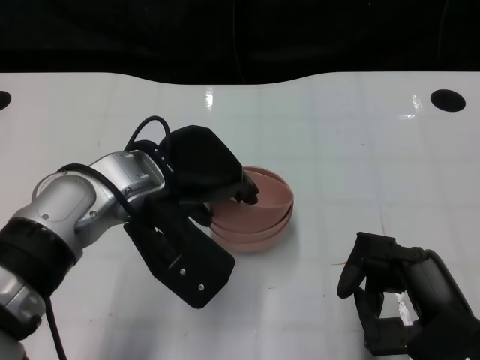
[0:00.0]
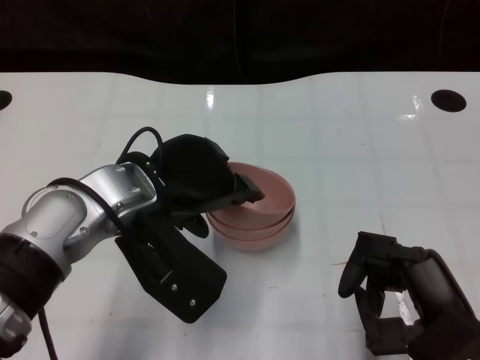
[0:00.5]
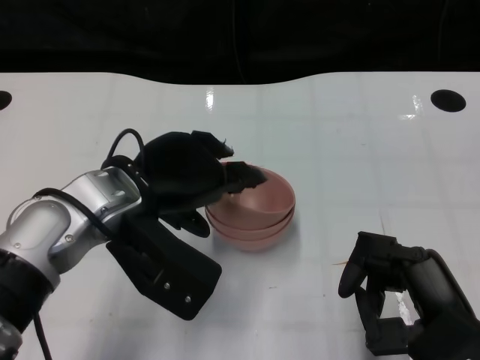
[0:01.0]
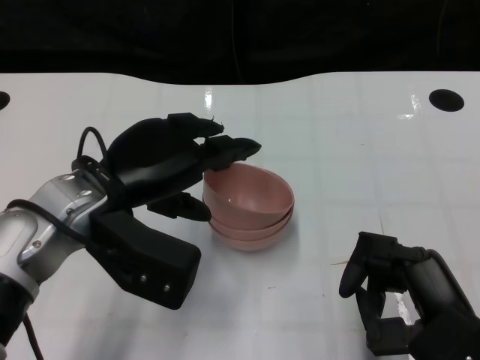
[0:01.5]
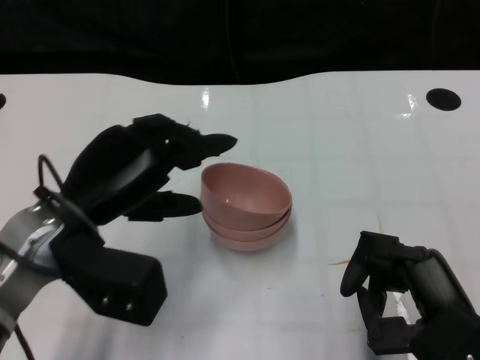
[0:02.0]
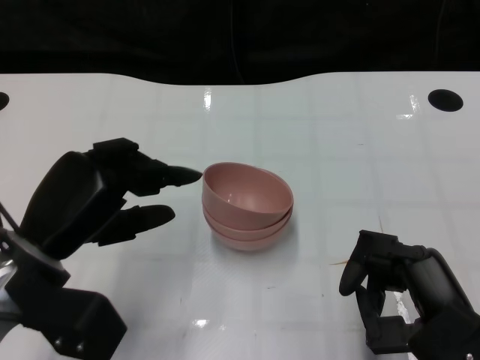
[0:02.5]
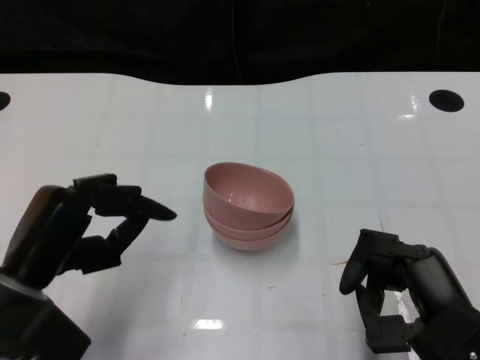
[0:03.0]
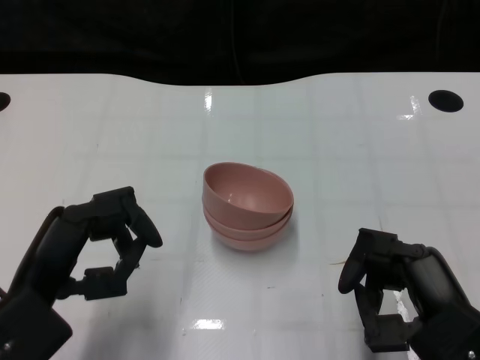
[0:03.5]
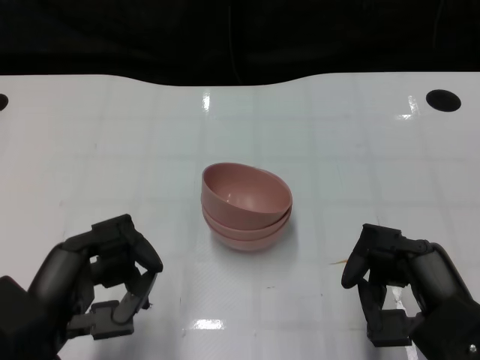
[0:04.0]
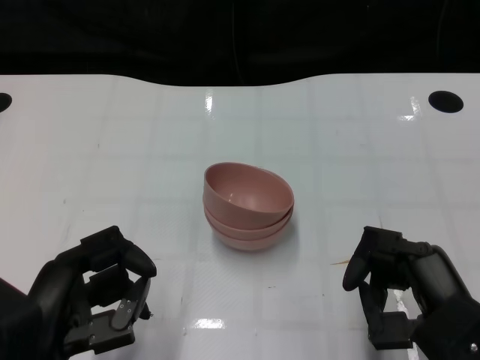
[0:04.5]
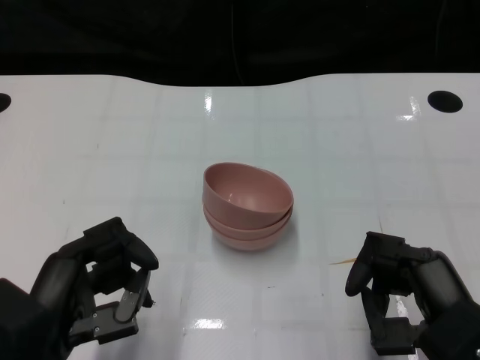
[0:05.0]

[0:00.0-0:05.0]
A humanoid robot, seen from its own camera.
Task of the whole recording: Pick up the bowl on one side of the table and place it on top of the middle bowl, then pick up the bowl on the other side of the table and place it on top of the middle bowls.
0:00.0 to 0:02.5: The left hand travels to the left and backward by about 10 cm.
0:02.5 to 0:05.0: The left hand travels backward by some 10 cm.

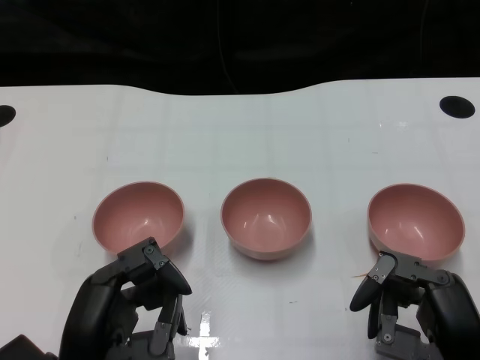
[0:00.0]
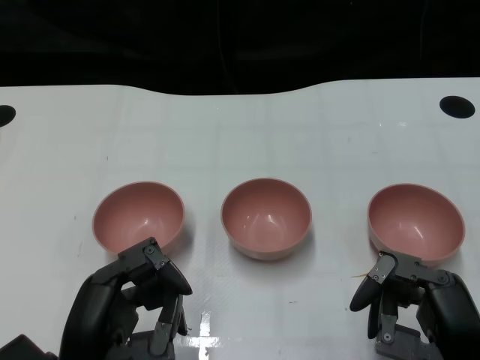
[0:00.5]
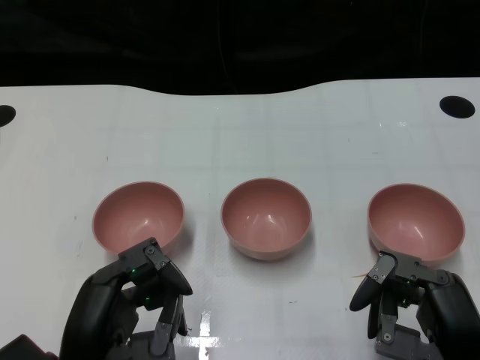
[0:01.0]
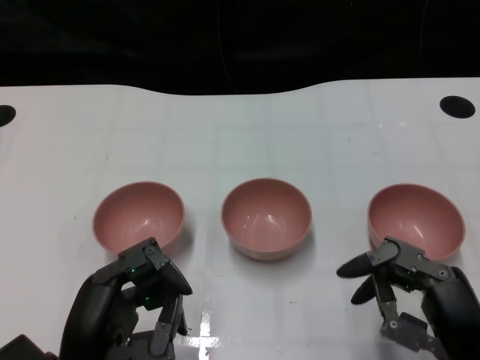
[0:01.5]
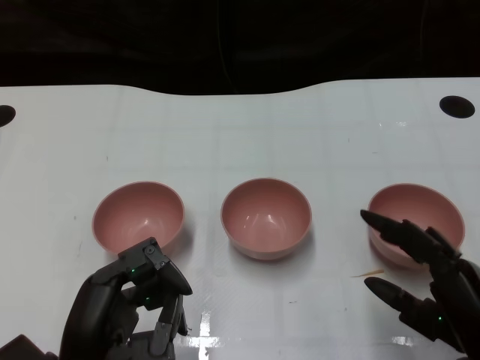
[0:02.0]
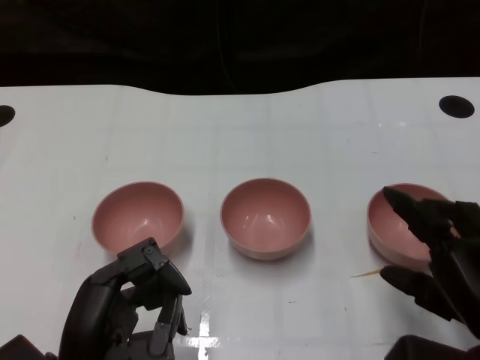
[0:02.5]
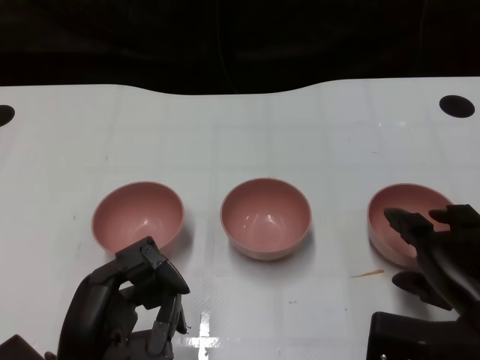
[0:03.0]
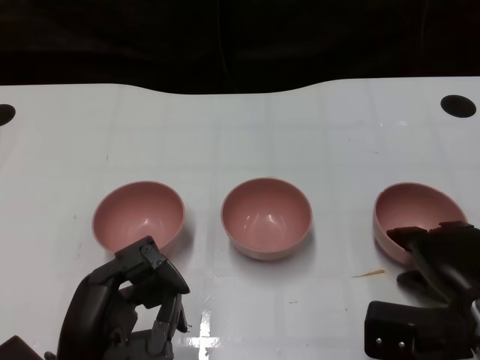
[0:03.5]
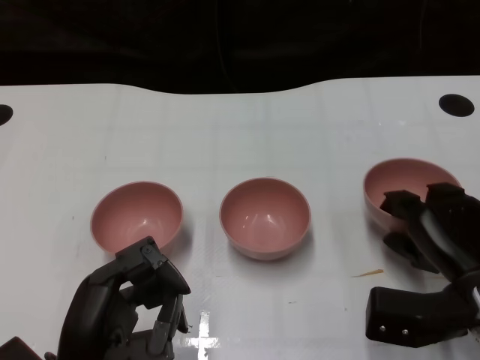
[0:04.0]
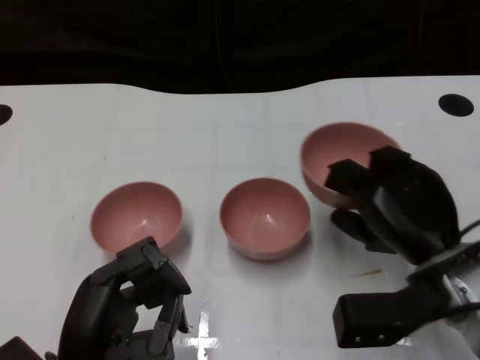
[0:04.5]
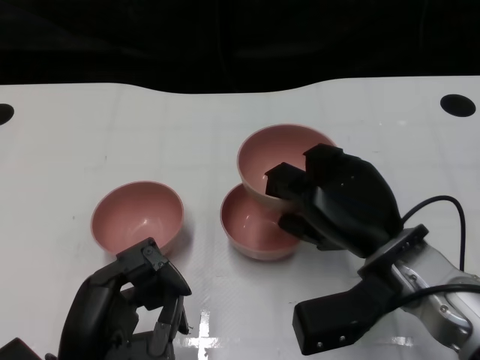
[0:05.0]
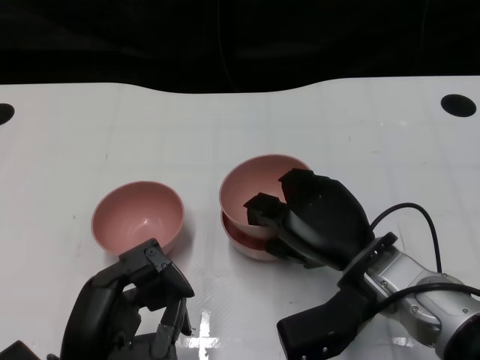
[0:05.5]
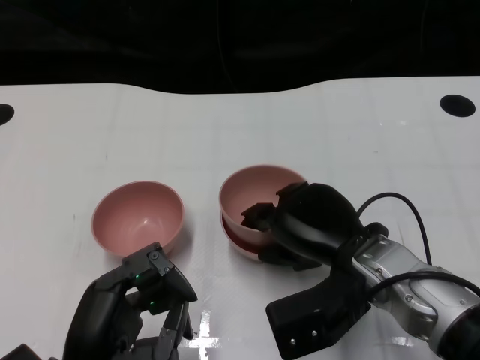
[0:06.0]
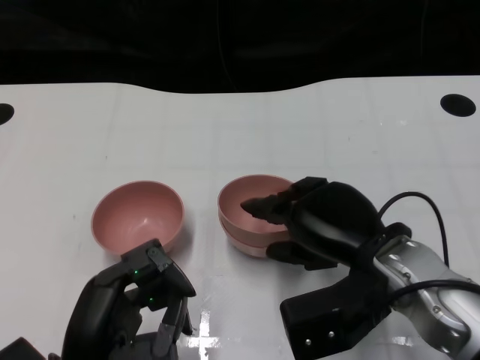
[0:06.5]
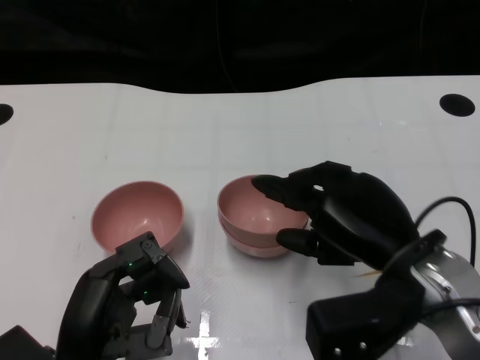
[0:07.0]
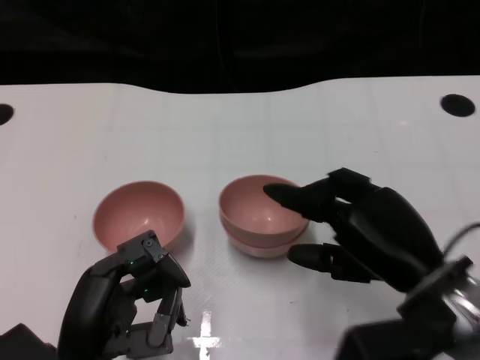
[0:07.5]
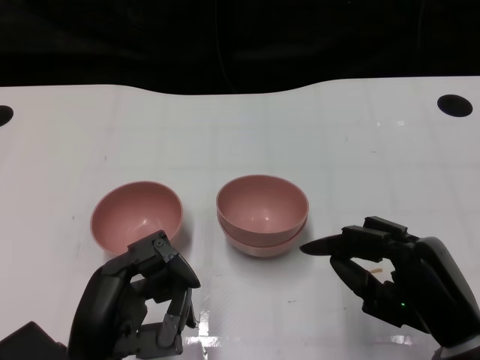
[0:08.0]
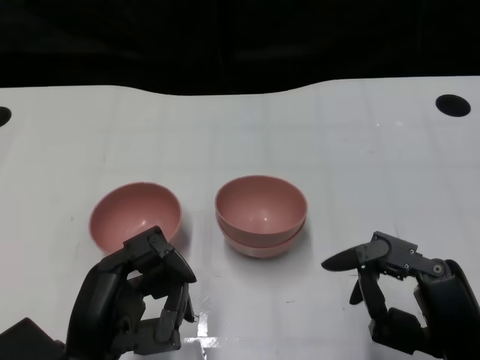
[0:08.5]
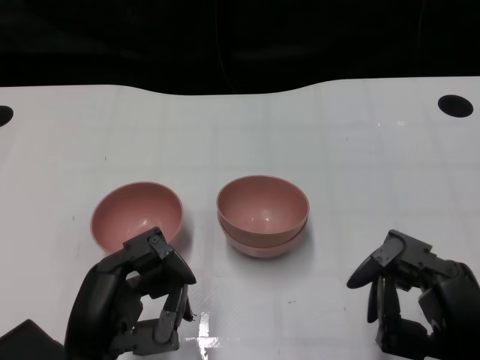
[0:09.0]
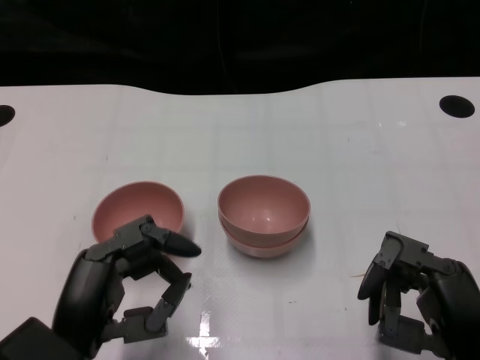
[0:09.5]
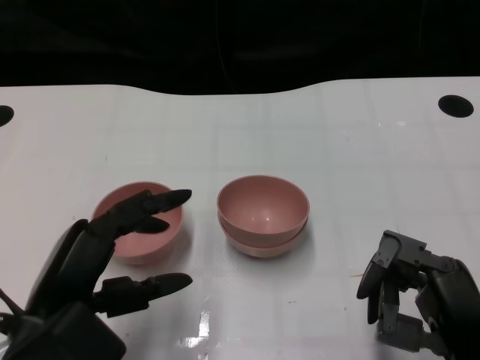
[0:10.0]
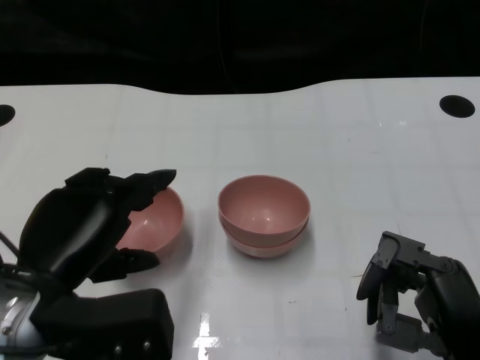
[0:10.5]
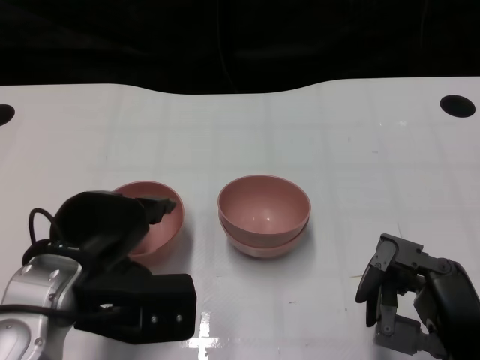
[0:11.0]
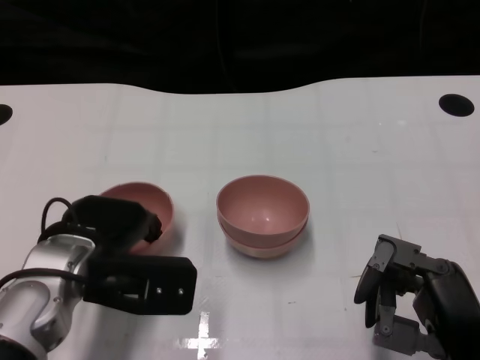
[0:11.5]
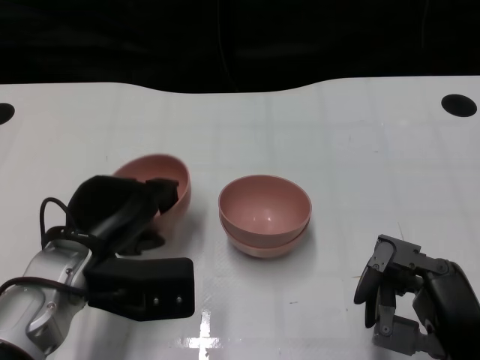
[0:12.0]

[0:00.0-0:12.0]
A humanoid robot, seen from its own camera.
Task of the whole recording: Pick up the bowl on one side of the table and place it on top of the middle bowl, then pick up the bowl on the other side of the table and place it on top of the middle bowls.
Step, 0:01.5 to 0:03.5: Grasp the bowl on the right with the right gripper.
Step, 0:04.0 to 0:06.5: Place the bowl on the right onto the bowl in the middle with right gripper.
Step, 0:07.5 to 0:11.5: Grasp the bowl on the left with the left gripper.
0:02.0 to 0:04.0: The right hand goes approximately 10 cm forward.
0:04.0 to 0:06.0: The right hand shifts approximately 10 cm to the left.
0:06.0 to 0:08.0: The right hand travels backward and to the right by roughly 10 cm.
0:08.0 to 0:10.0: The left hand shifts some 5 cm upward.
0:10.0 to 0:12.0: The left hand shifts some 10 cm forward.

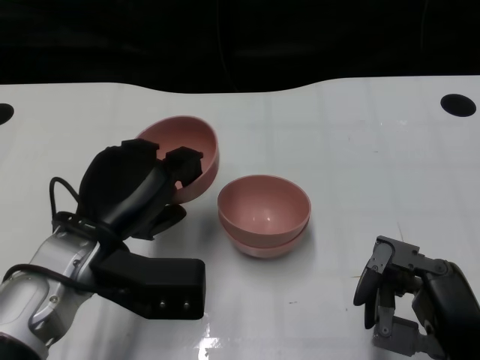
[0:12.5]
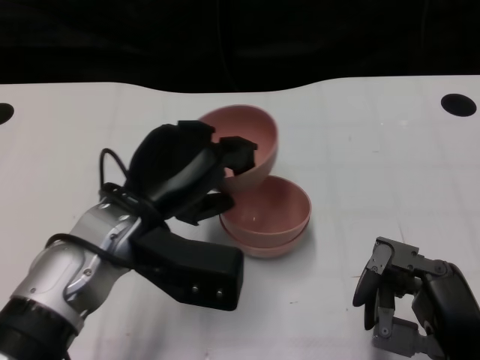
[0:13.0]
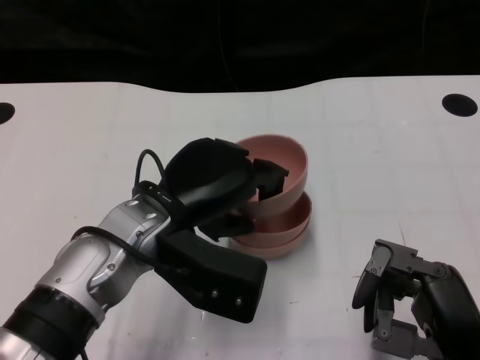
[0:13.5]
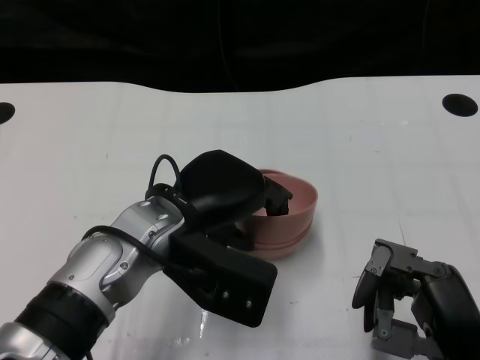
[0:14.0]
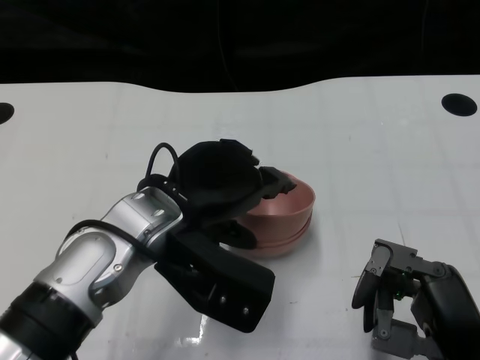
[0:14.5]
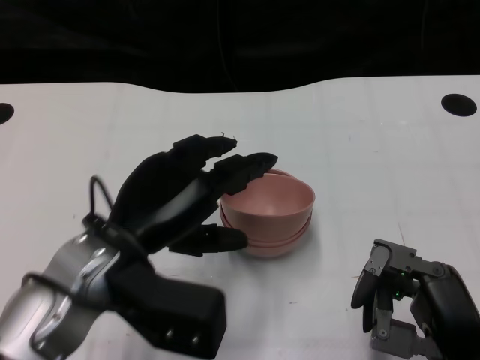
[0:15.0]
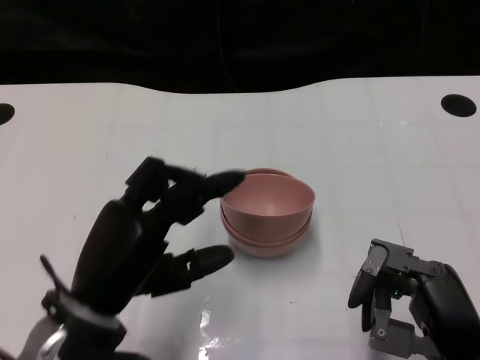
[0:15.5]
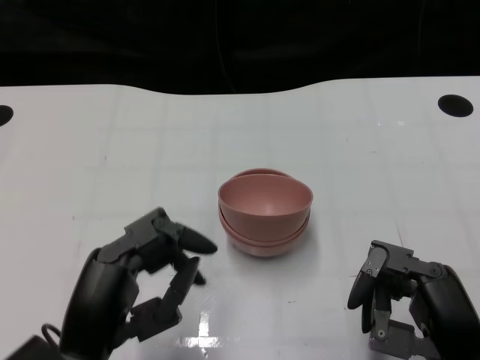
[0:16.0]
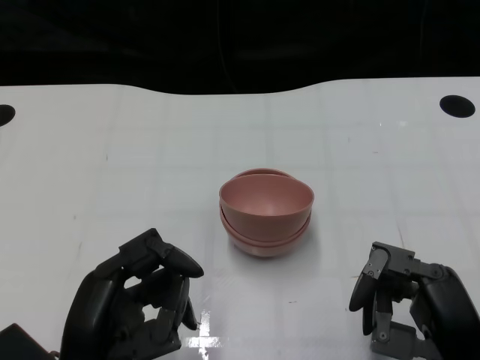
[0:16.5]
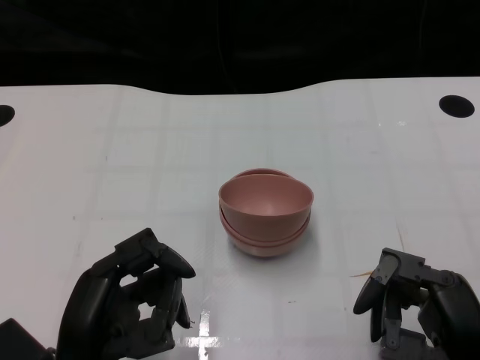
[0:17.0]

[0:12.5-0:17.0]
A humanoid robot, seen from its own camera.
Task of the whole recording: Pick up the bowl on one side of the table and place it on top of the middle bowl, then pick up the bowl on the other side of the table and place it on top of the middle bowls.
Step, 0:12.5 to 0:15.5: Place the bowl on the left onto the bowl in the middle with left gripper.
0:12.5 to 0:14.5: The left hand heads to the right, covering approximately 5 cm.
0:14.5 to 0:17.0: The left hand travels backward, to the left and downward by some 15 cm.

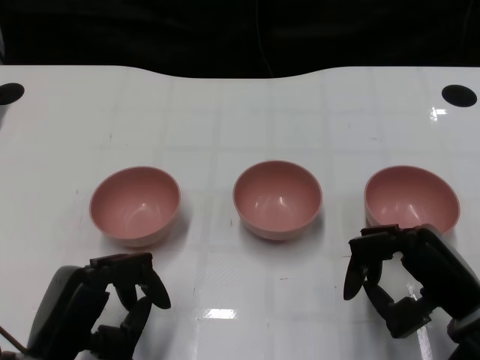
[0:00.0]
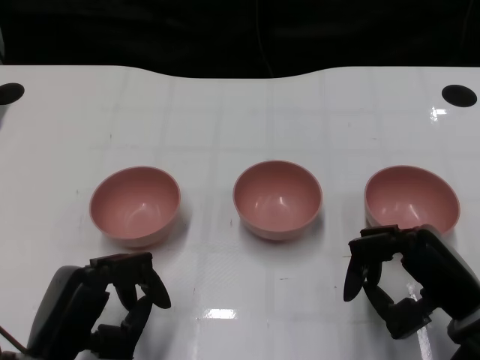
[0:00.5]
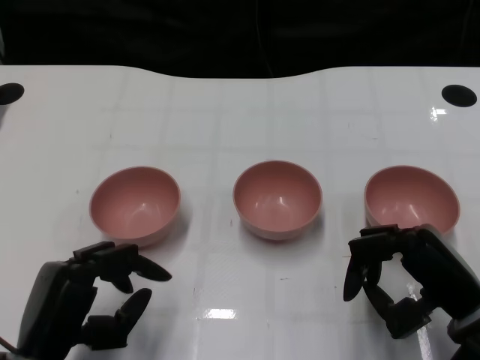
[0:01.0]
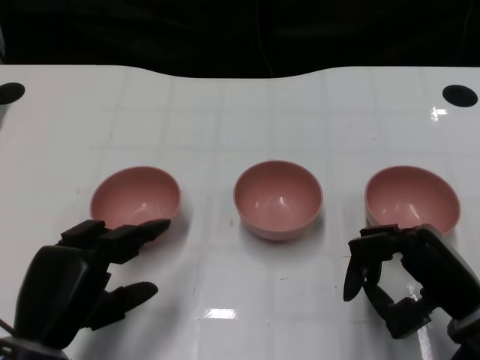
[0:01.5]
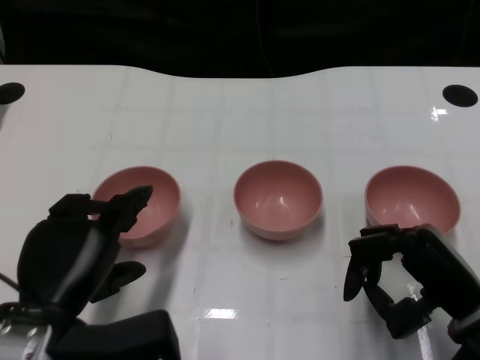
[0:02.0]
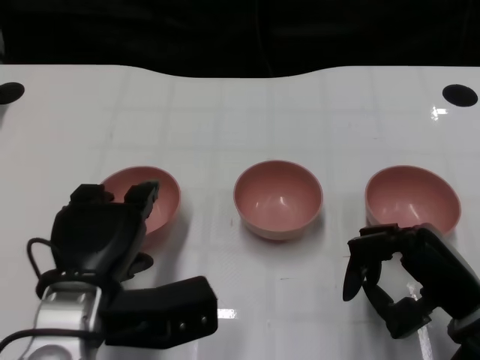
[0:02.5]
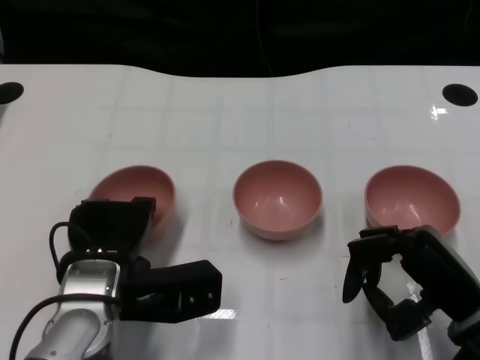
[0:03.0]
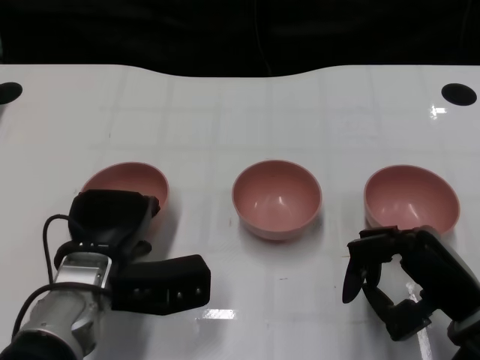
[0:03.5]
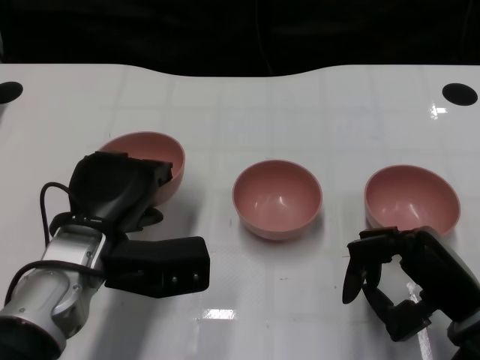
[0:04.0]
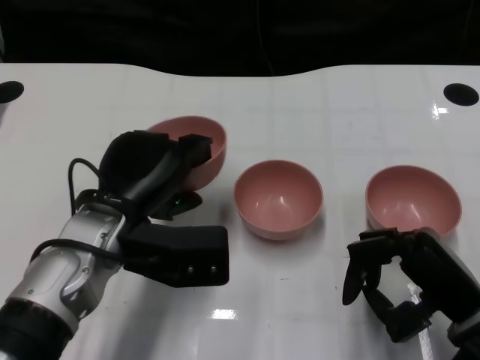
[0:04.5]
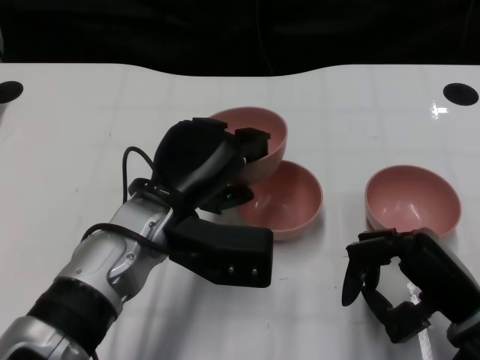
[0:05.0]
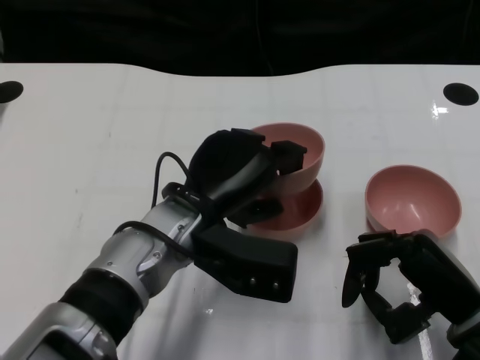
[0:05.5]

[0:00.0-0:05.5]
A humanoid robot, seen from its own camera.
Task of the whole recording: Pick up the bowl on one side of the table and place it on top of the middle bowl, then pick up the bowl on the other side of the table and place it on top of the middle bowls.
Step, 0:01.0 to 0:03.0: Grasp the bowl on the left with the left gripper.
0:02.0 to 0:03.5: The left hand goes approximately 10 cm forward.
0:03.5 to 0:05.5: The left hand travels to the right and upward by approximately 10 cm.
